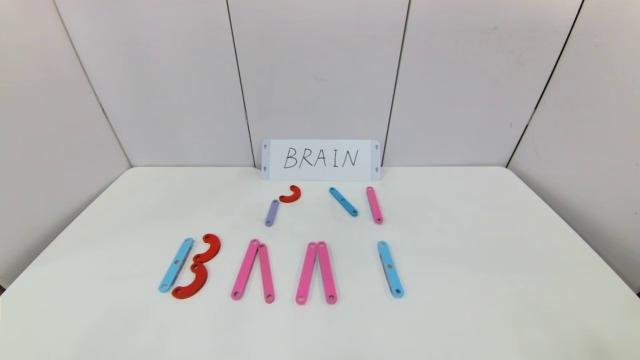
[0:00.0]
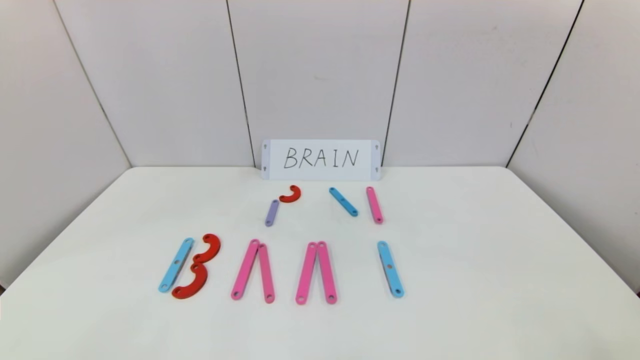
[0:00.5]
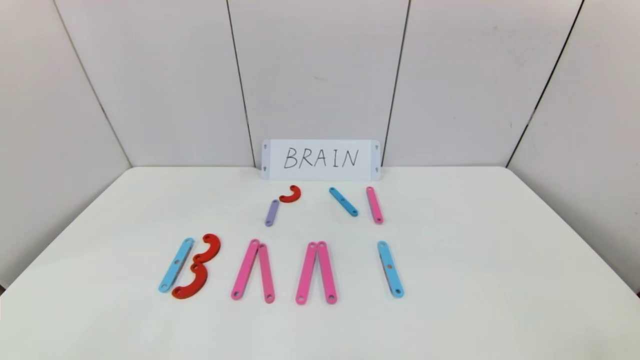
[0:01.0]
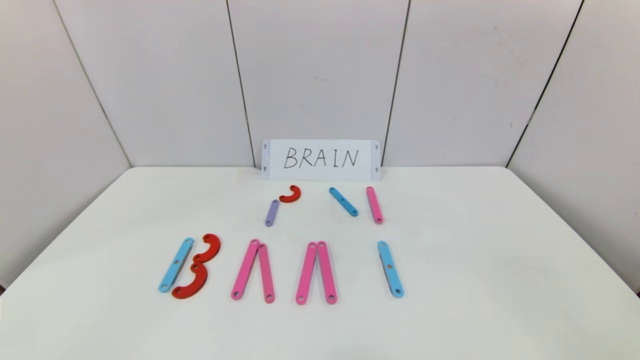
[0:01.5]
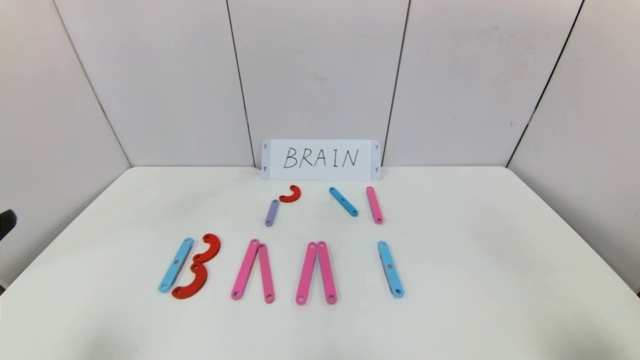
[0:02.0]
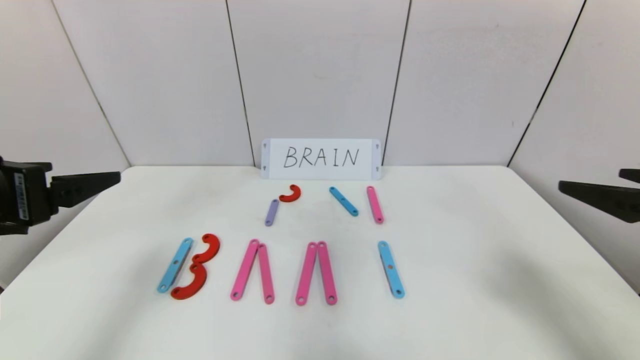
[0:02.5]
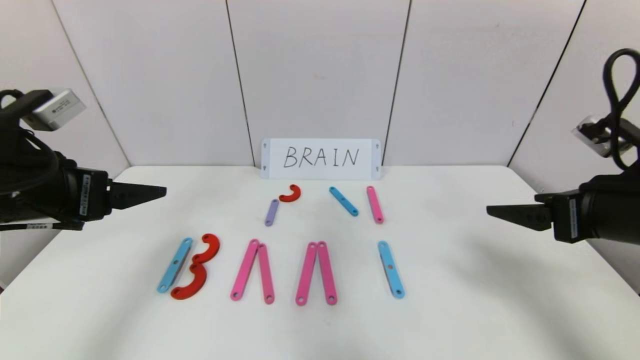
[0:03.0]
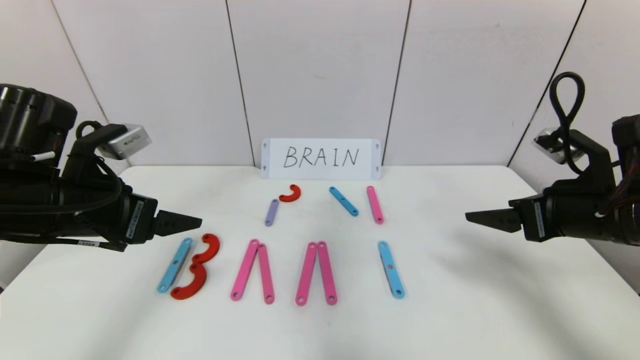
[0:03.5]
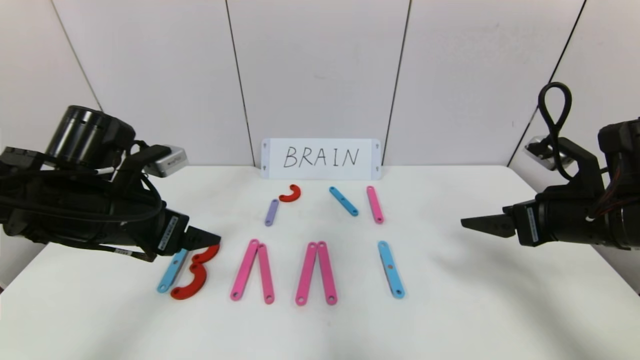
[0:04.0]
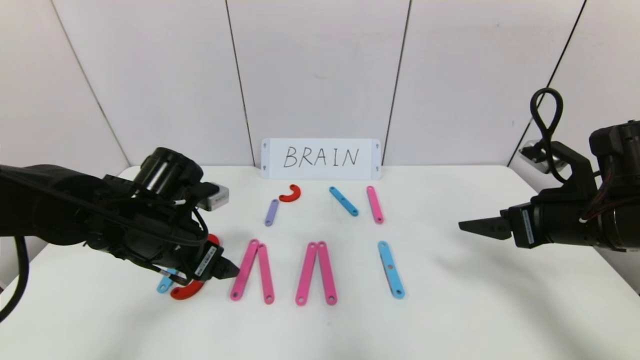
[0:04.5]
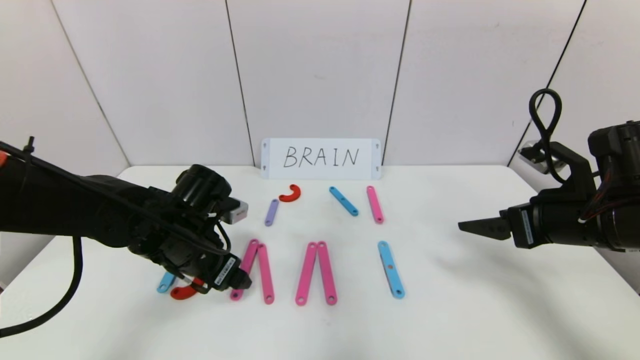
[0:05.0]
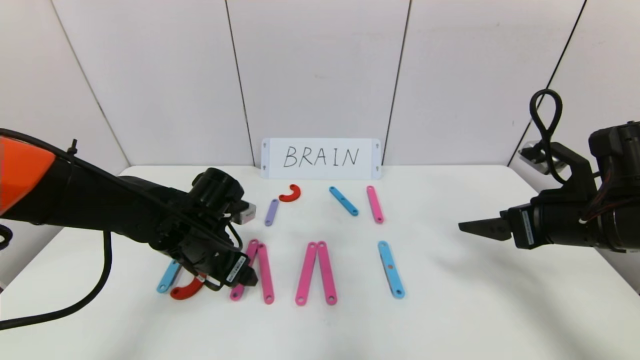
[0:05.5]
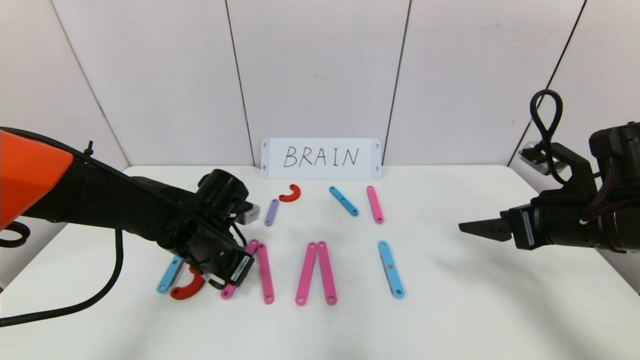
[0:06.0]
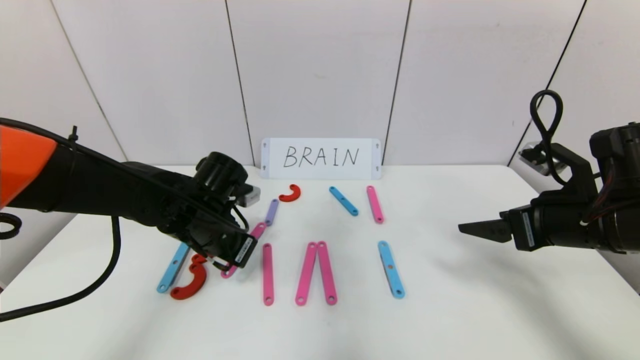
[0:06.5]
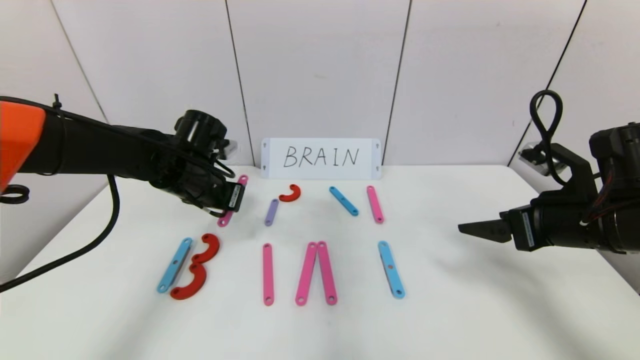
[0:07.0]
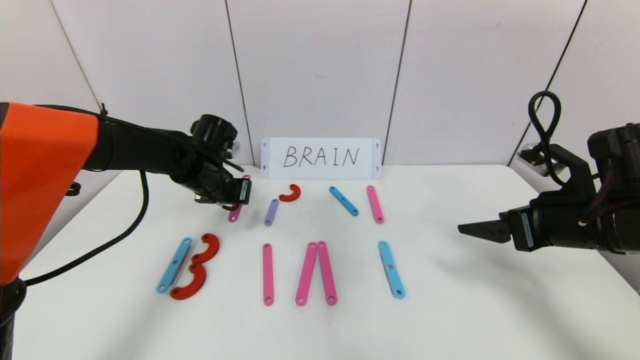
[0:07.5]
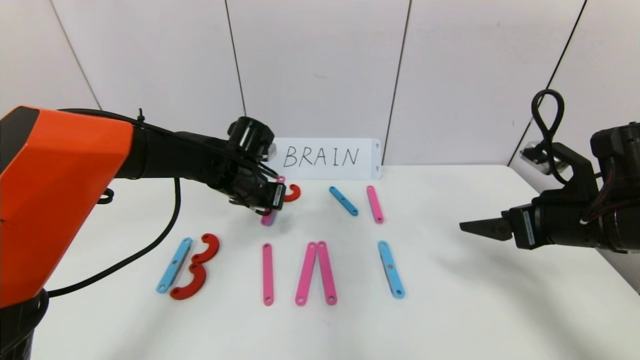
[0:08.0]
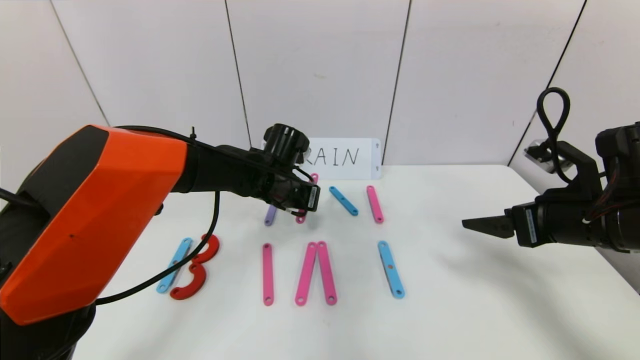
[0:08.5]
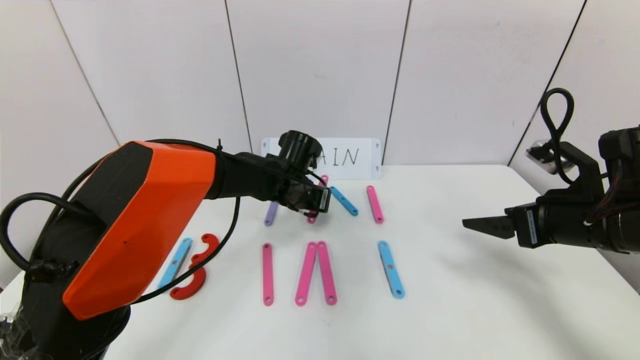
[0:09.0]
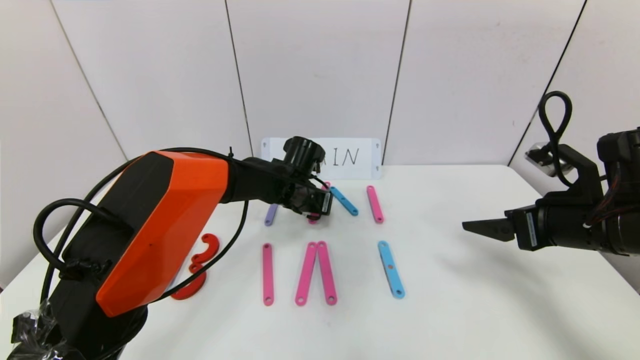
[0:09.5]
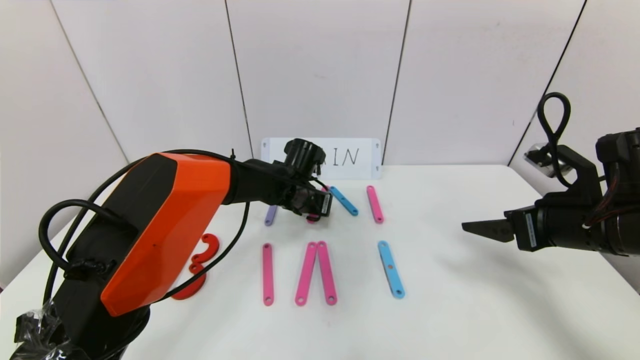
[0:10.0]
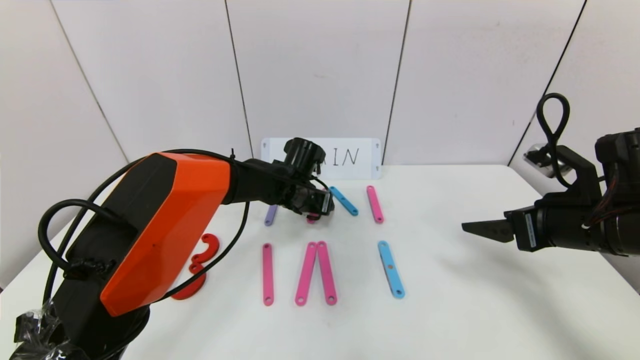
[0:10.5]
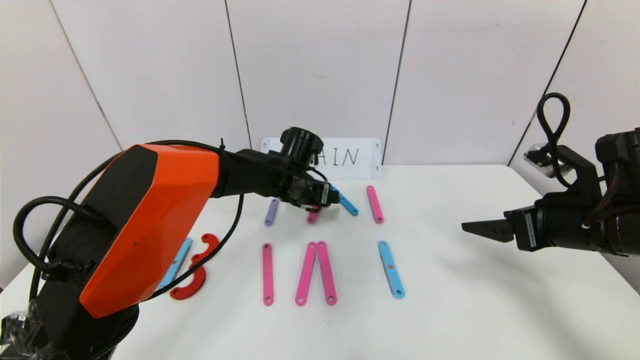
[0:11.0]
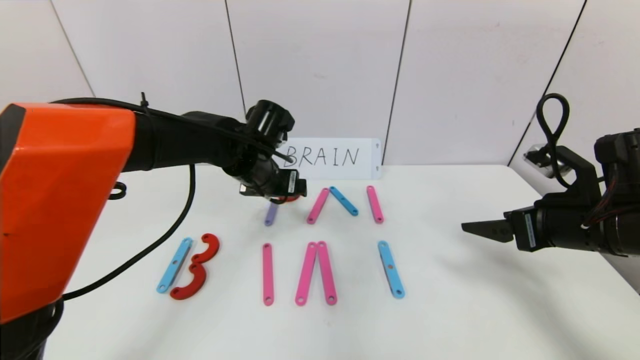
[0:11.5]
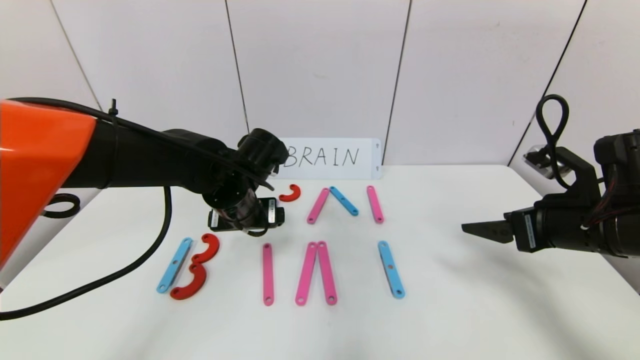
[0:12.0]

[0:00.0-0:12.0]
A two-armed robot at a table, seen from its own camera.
Task of the whole recording: rearrange the word baai as brain.
0:02.0 to 0:04.0: The two grippers go approximately 20 cm forward.
0:04.0 to 0:06.0: The left gripper travels downward, to the right and forward by approximately 15 cm, and closes its fingers.
0:06.0 to 0:08.0: The left gripper is displaced forward by approximately 10 cm.
0:08.0 to 0:10.0: The left gripper travels to the right and downward by approximately 10 cm.
0:10.0 to 0:12.0: The left gripper shifts roughly 15 cm backward, to the left and upward, and opens up.

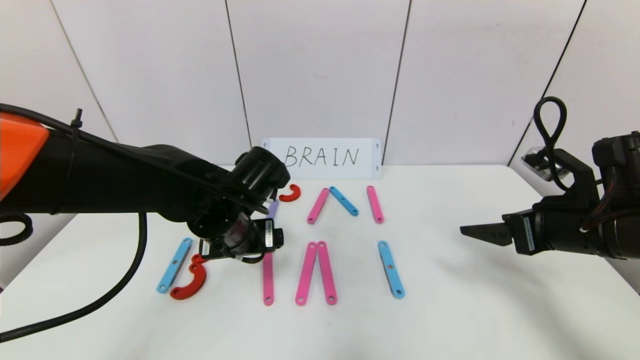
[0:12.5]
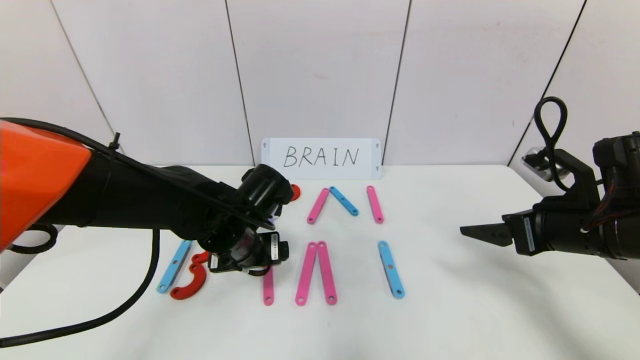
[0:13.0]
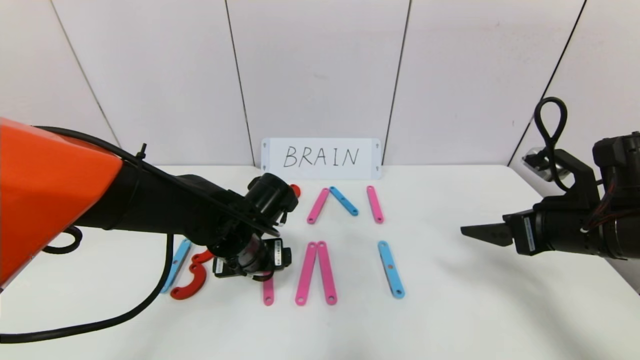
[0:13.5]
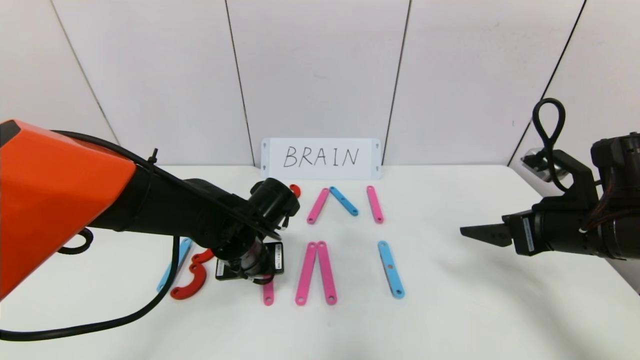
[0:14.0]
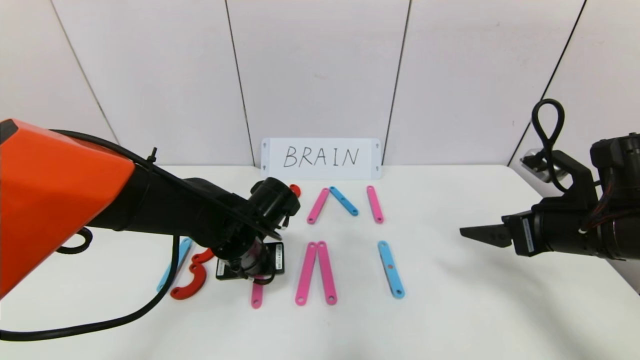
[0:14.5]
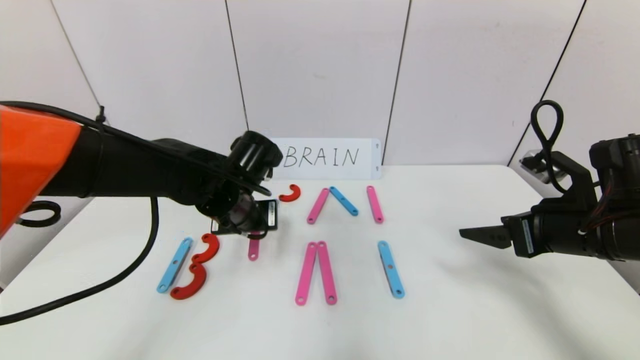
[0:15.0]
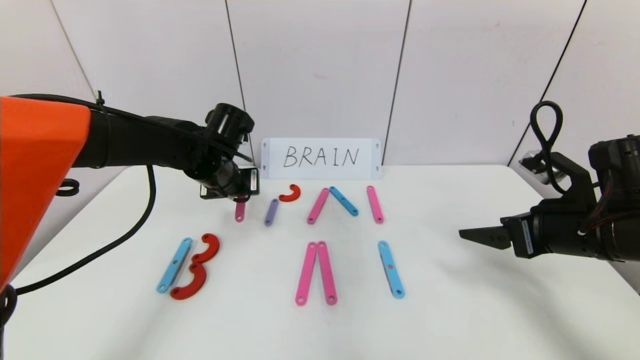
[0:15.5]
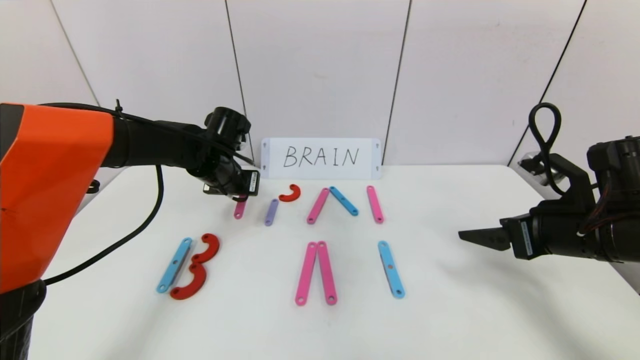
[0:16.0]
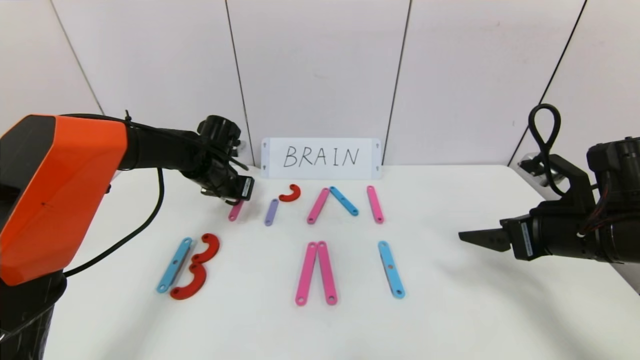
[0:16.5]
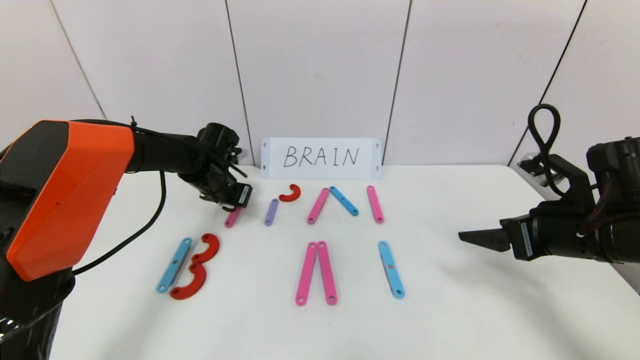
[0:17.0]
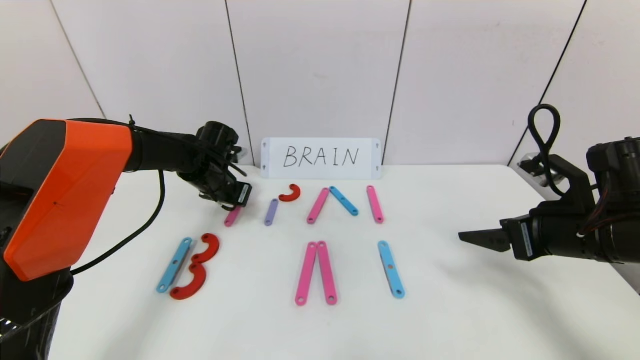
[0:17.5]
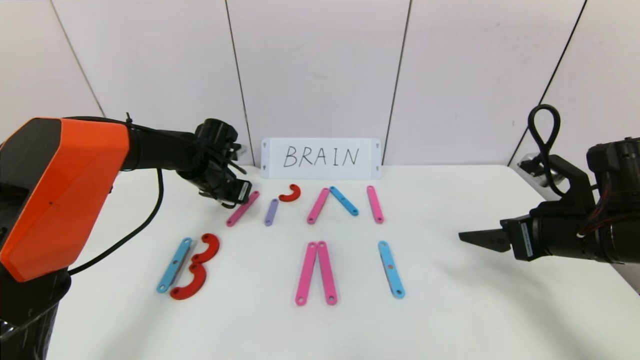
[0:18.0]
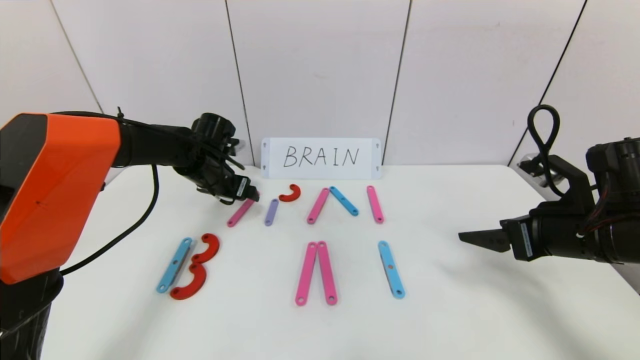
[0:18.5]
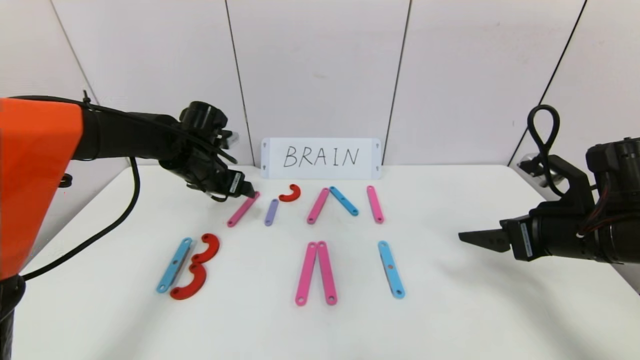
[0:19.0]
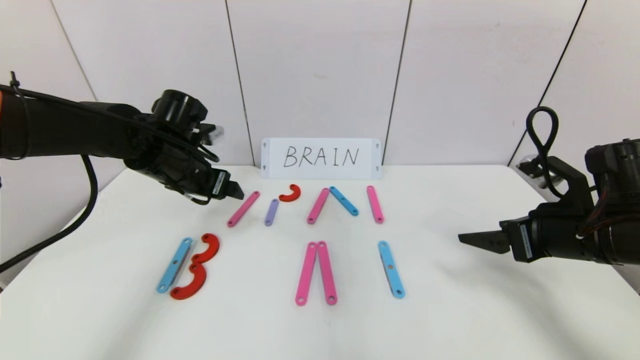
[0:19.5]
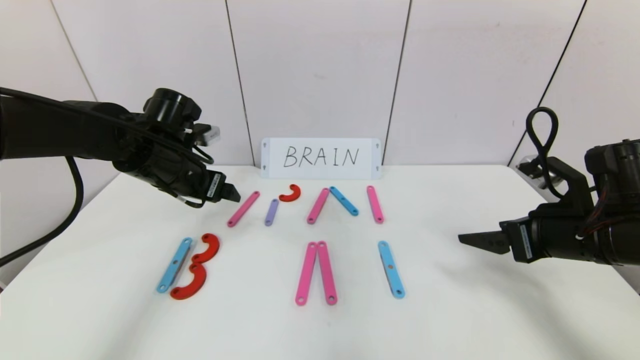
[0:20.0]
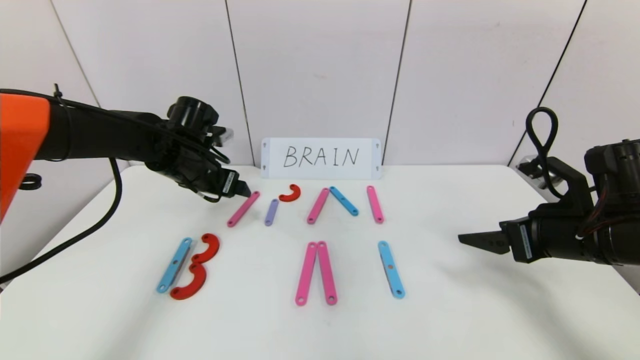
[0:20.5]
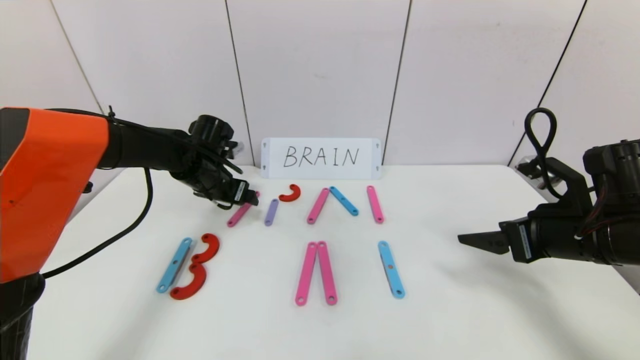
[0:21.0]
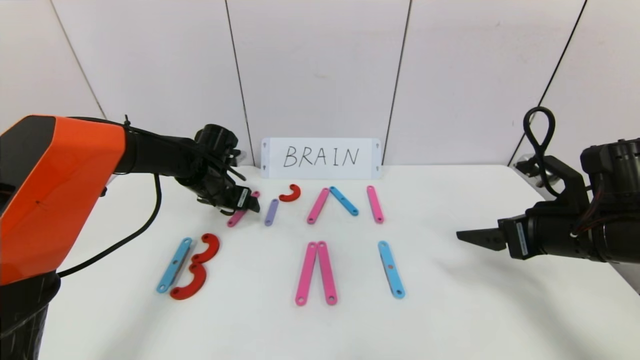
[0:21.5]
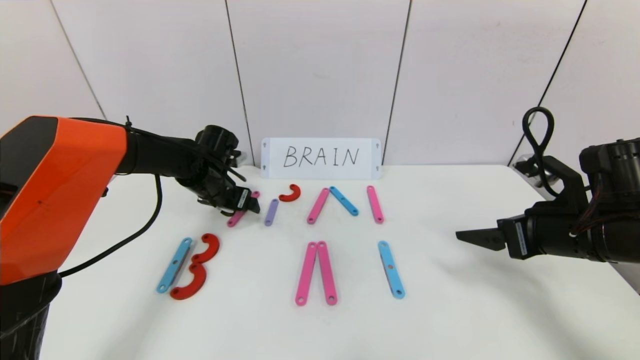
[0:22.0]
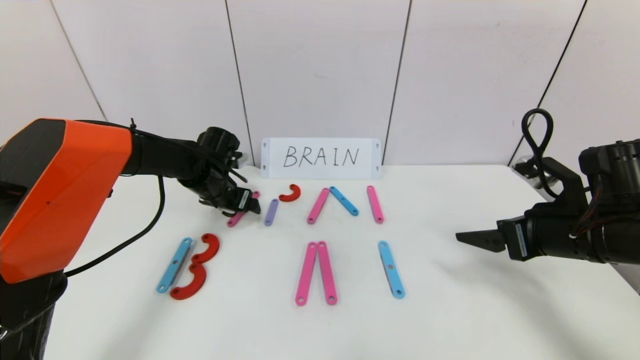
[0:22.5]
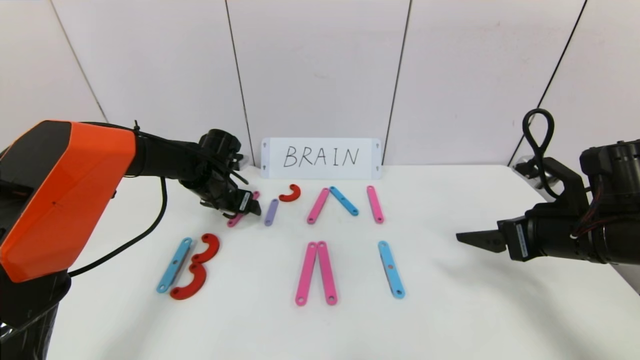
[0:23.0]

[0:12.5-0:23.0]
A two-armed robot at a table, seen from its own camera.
Task of the whole recording: rearrange the word baai as brain.
Step, 0:12.5 to 0:18.5: Disassemble the second character A.
0:12.5 to 0:14.5: The left gripper closes.
0:14.5 to 0:16.5: The left gripper goes roughly 20 cm forward and to the left.
0:16.5 to 0:19.0: The left gripper opens.
0:21.0 to 0:23.0: The grippers move only a little.
